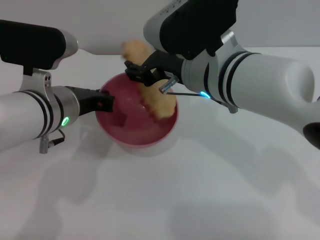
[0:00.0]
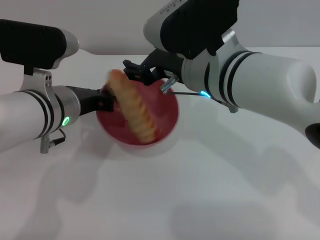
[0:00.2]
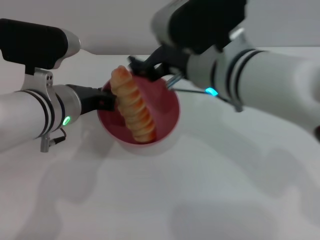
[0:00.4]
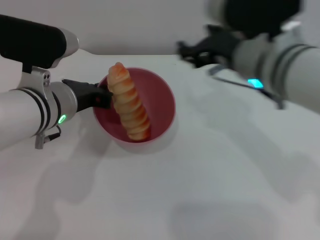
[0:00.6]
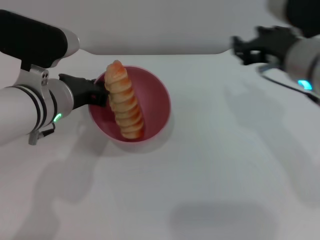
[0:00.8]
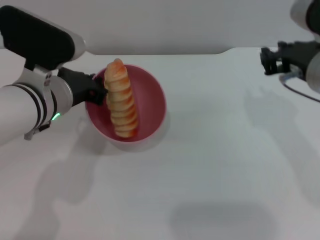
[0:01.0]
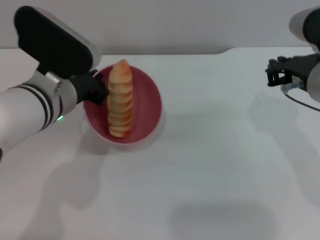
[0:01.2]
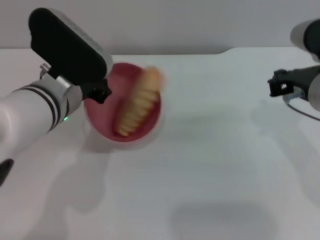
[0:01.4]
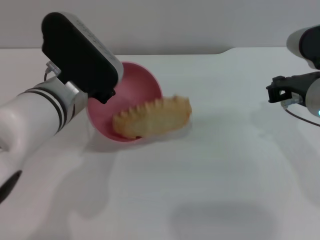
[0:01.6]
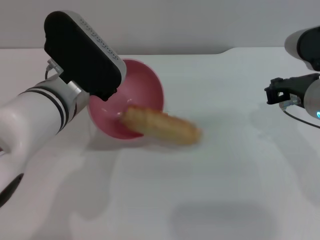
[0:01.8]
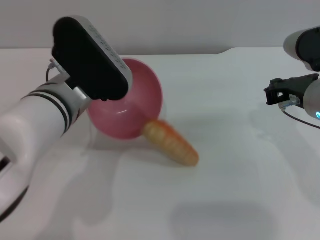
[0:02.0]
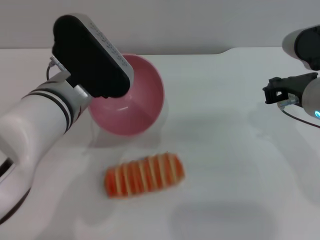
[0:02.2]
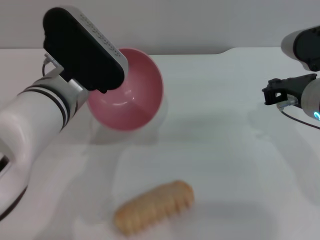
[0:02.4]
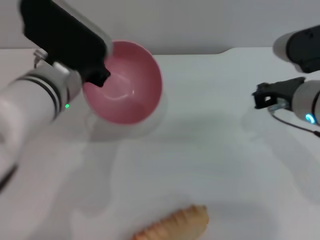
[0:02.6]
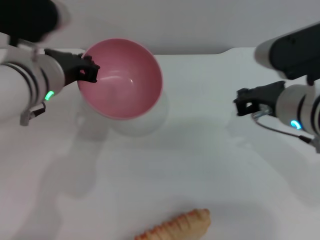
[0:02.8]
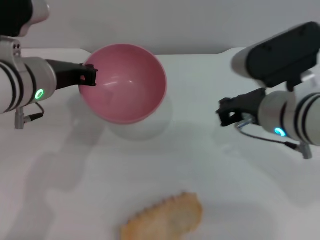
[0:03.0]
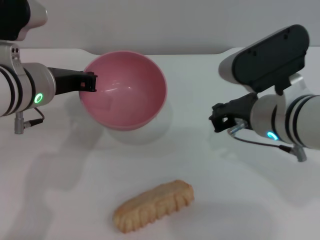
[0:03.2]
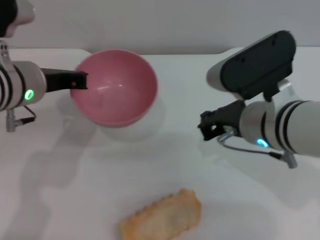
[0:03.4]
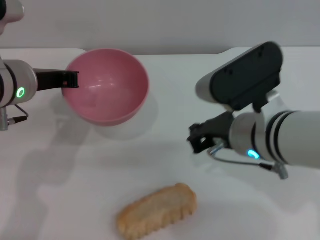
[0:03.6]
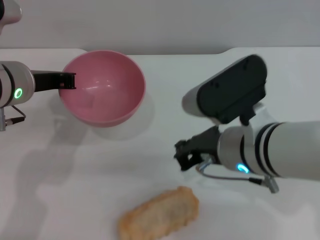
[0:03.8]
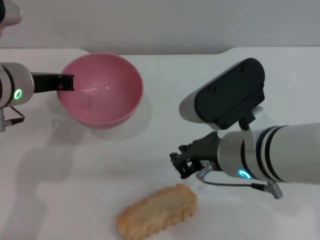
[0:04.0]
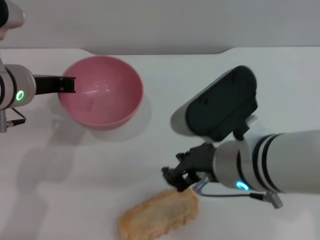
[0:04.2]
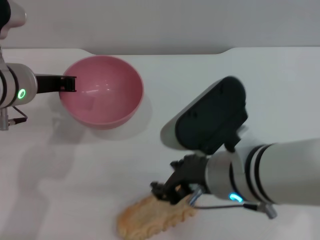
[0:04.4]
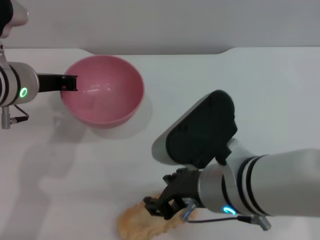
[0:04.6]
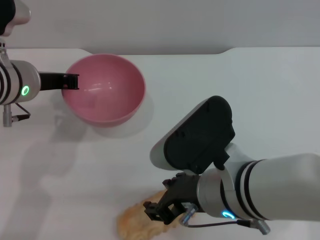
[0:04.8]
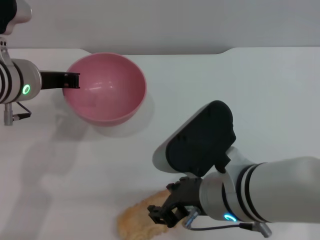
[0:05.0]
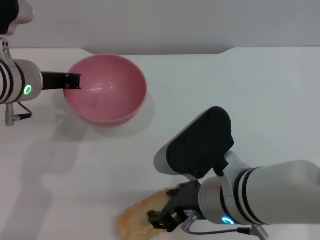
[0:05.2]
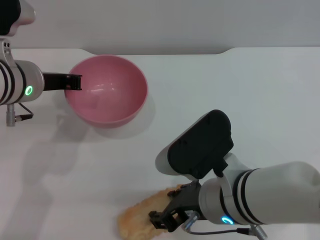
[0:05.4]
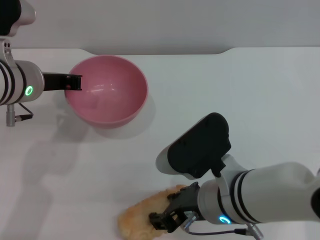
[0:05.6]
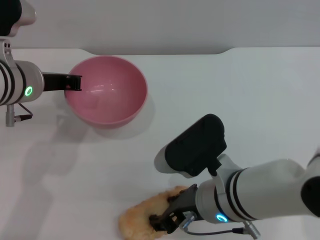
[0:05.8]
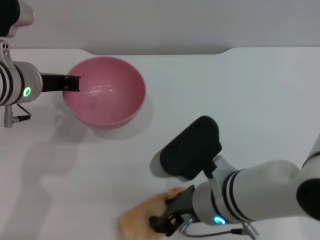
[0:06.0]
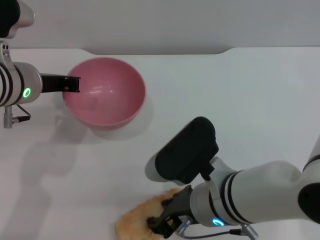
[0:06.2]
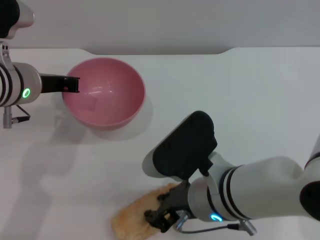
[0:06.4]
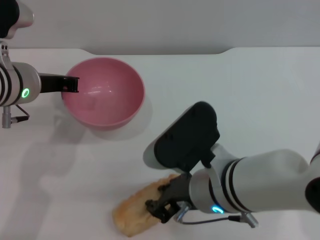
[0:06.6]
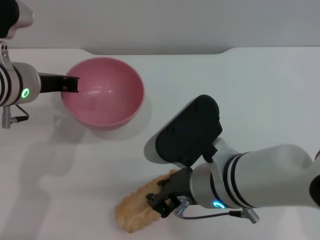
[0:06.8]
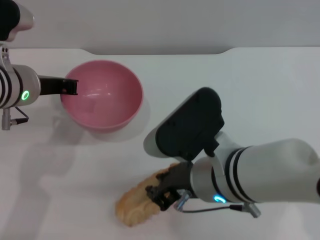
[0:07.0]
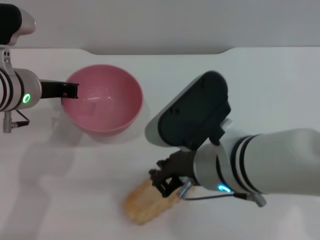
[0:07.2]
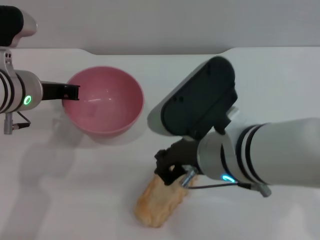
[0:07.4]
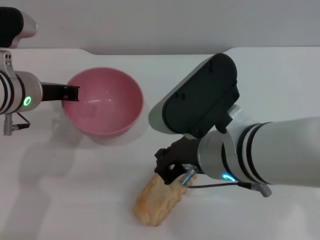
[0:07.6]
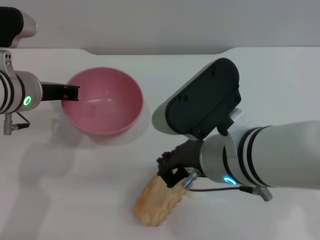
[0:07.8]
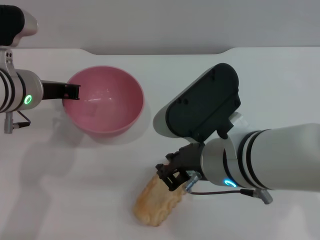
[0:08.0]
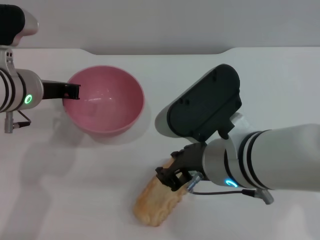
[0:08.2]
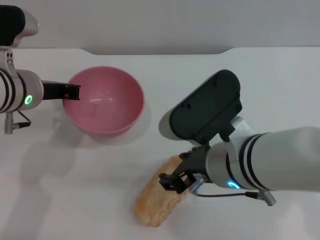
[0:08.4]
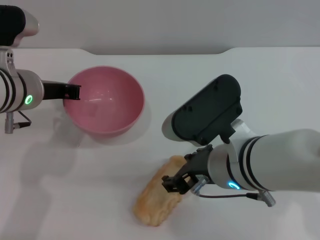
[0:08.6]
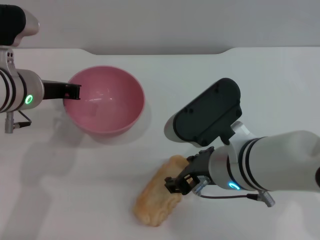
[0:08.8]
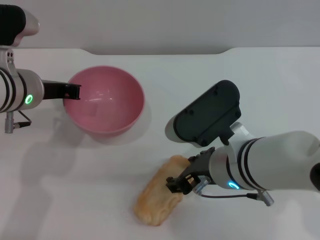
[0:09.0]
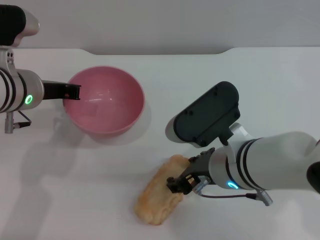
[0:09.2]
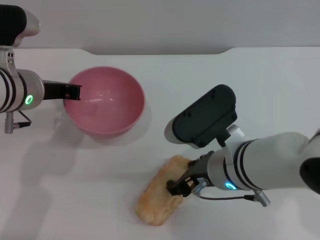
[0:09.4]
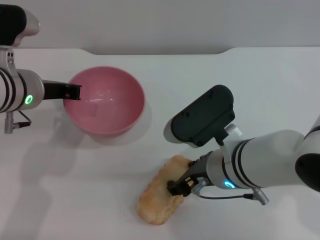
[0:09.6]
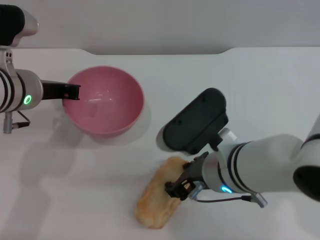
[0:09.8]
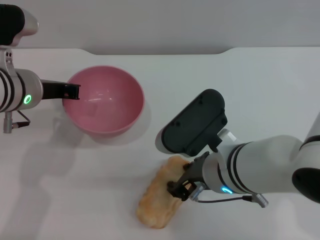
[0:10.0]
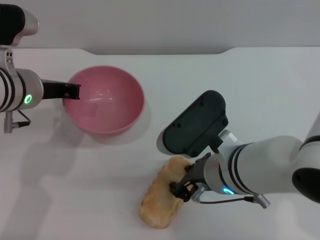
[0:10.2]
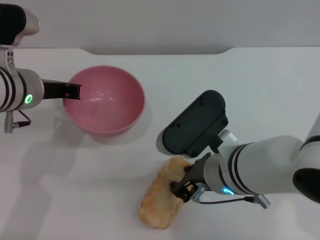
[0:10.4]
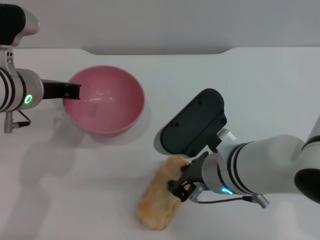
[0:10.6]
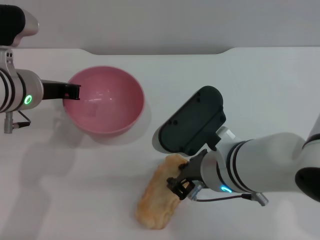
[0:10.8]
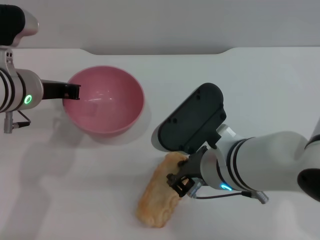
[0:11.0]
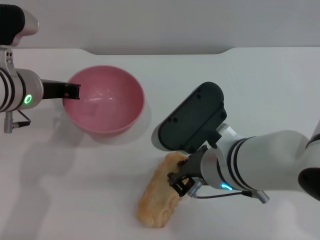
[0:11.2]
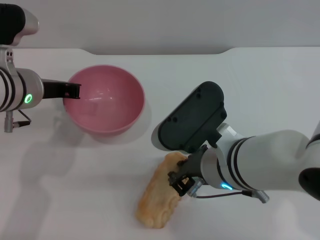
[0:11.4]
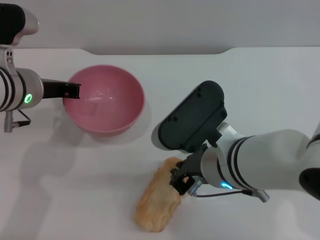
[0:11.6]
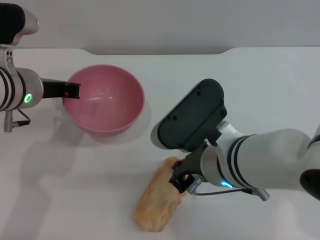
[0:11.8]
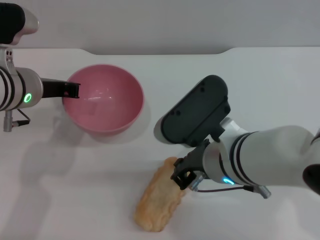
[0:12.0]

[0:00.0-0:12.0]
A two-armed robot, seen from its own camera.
Task of the whole recording: put the bread into the pink bowl and pour it out repeatedly.
Step, 0:00.8 to 0:03.2: Pour the bread out of the bowl.
0:00.0 to 0:01.6: The right gripper heads to the right, covering some 15 cm, and closes up.
0:01.6 to 0:03.0: The left gripper shifts by about 5 cm. Meanwhile the right gripper moves to the left, about 5 cm.
0:03.0 to 0:04.4: The right gripper goes about 10 cm to the left and backward, and opens its fingers.
0:04.4 to 0:06.0: The right gripper moves downward, some 5 cm.
0:06.0 to 0:07.6: The right gripper goes roughly 10 cm upward, and closes.
0:07.6 to 0:09.0: The right gripper shifts approximately 5 cm downward, and opens up.
0:09.0 to 0:10.4: The grippers move only a little.
0:10.4 to 0:12.0: The right gripper closes up.

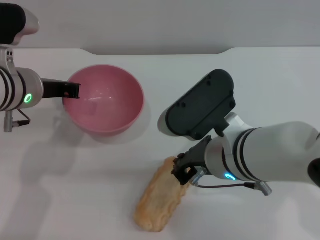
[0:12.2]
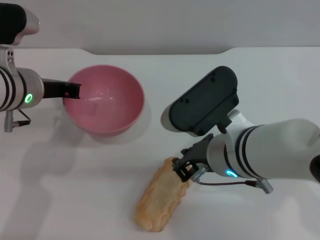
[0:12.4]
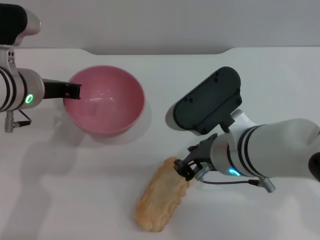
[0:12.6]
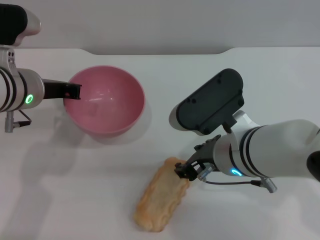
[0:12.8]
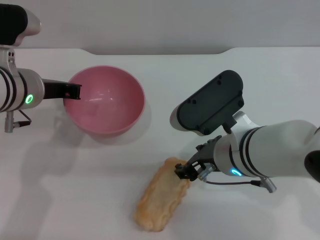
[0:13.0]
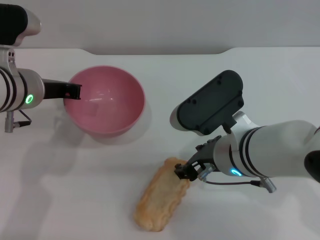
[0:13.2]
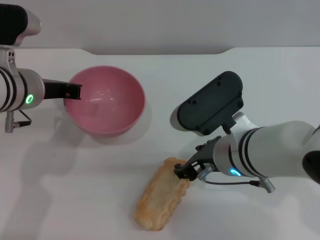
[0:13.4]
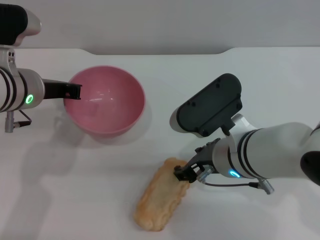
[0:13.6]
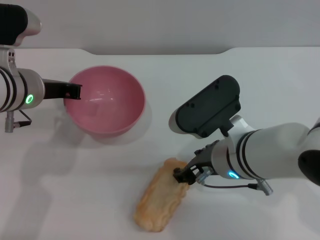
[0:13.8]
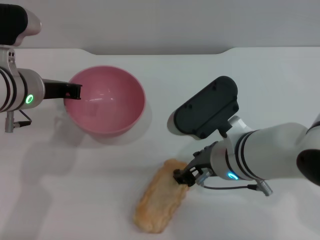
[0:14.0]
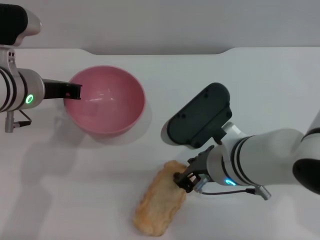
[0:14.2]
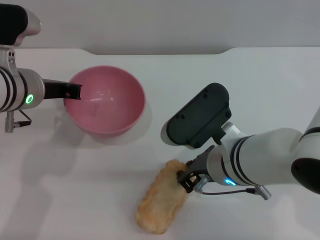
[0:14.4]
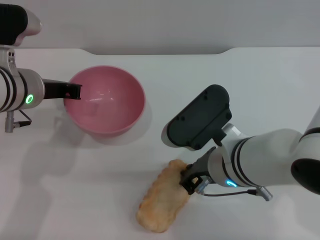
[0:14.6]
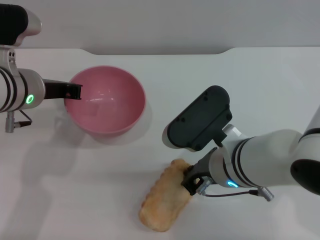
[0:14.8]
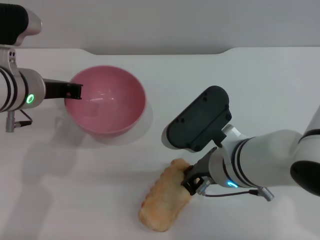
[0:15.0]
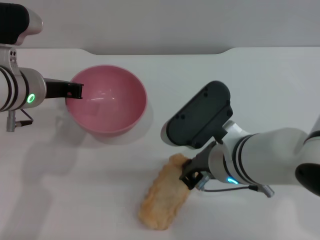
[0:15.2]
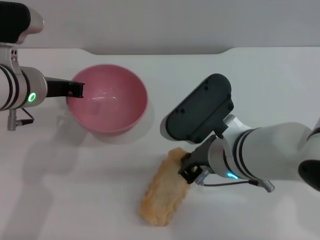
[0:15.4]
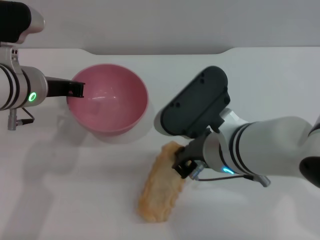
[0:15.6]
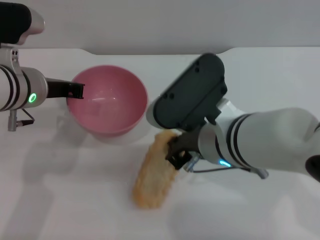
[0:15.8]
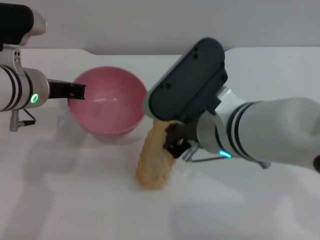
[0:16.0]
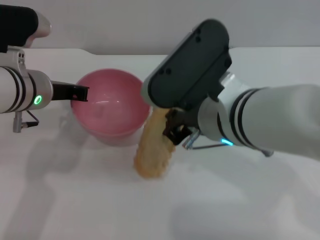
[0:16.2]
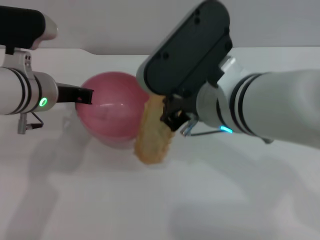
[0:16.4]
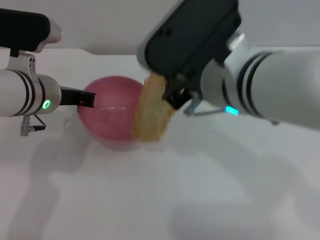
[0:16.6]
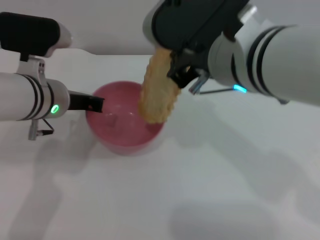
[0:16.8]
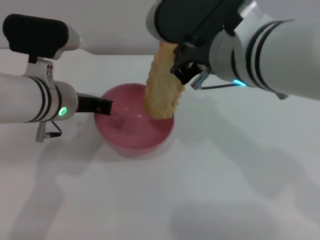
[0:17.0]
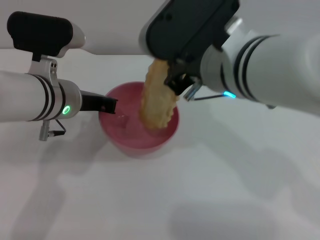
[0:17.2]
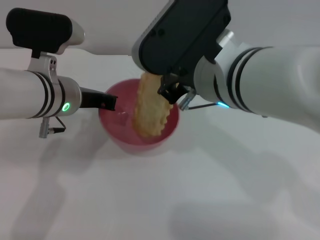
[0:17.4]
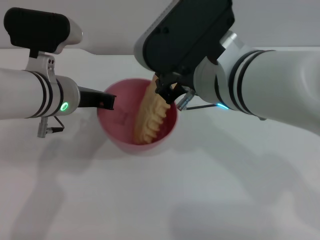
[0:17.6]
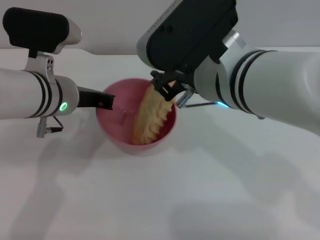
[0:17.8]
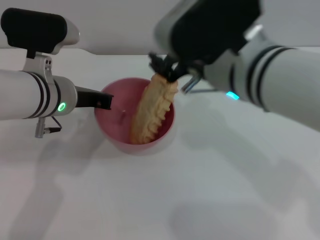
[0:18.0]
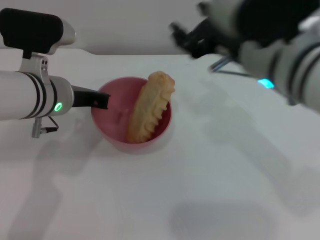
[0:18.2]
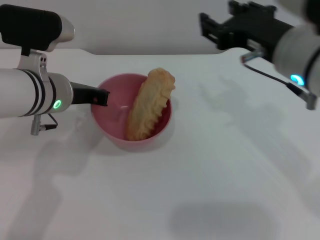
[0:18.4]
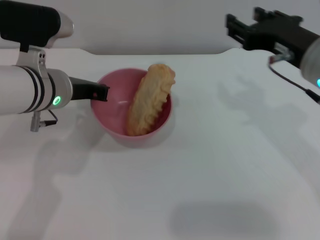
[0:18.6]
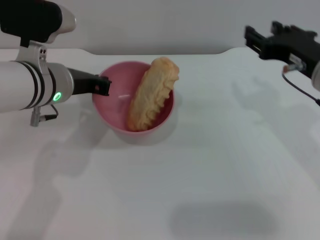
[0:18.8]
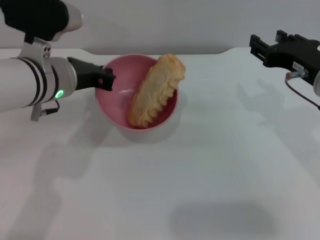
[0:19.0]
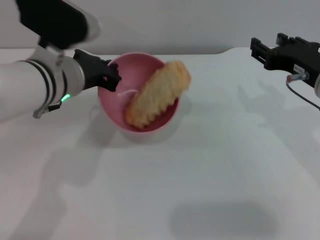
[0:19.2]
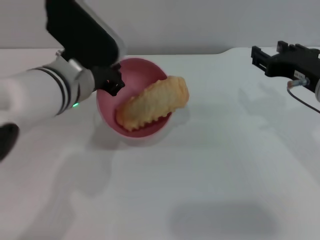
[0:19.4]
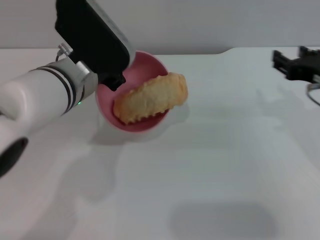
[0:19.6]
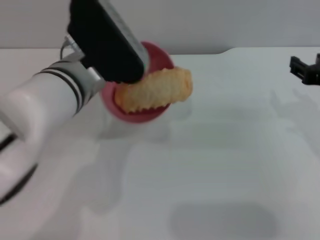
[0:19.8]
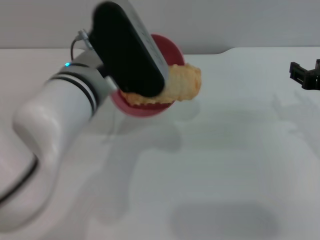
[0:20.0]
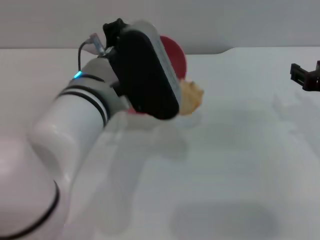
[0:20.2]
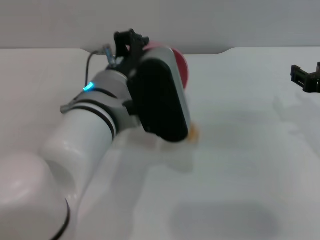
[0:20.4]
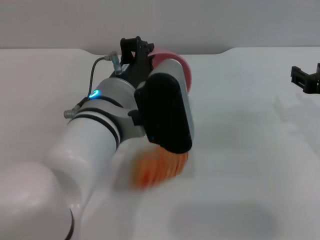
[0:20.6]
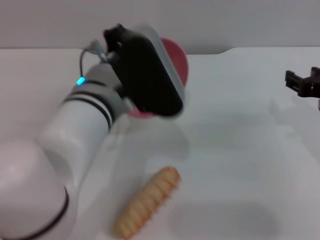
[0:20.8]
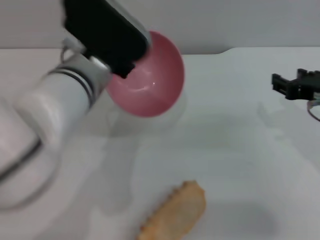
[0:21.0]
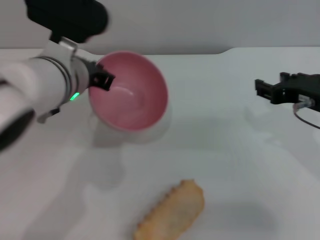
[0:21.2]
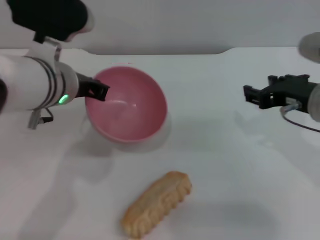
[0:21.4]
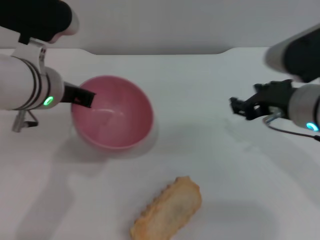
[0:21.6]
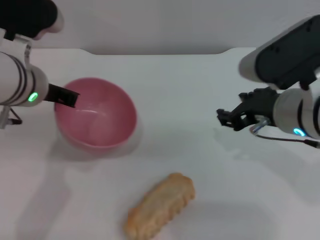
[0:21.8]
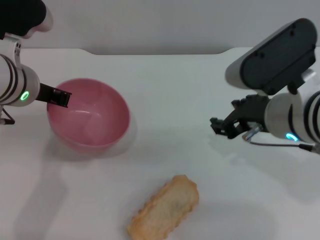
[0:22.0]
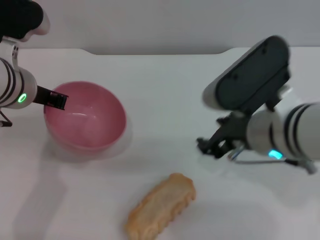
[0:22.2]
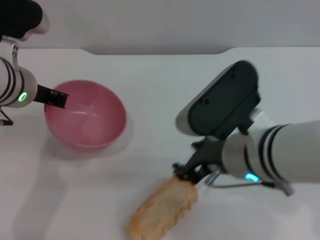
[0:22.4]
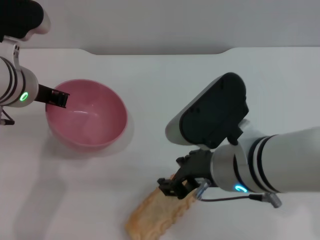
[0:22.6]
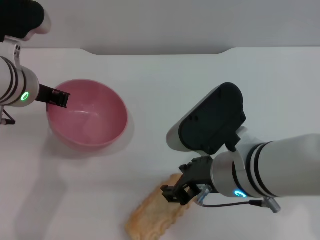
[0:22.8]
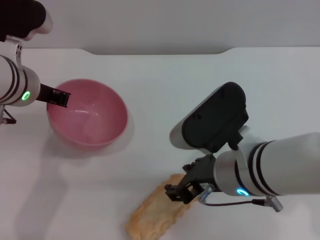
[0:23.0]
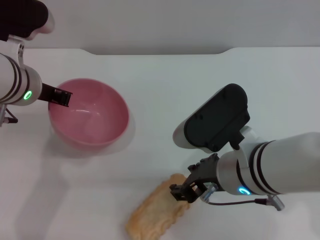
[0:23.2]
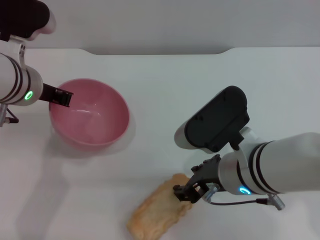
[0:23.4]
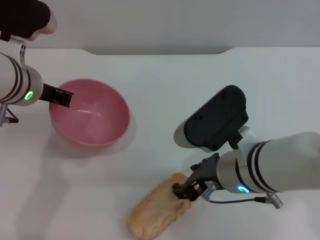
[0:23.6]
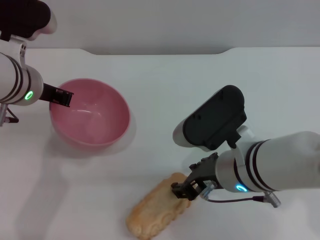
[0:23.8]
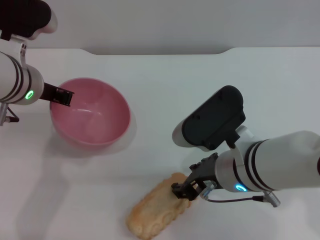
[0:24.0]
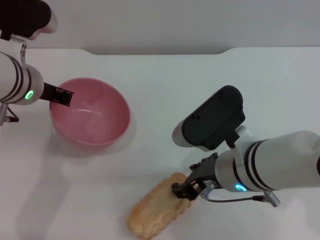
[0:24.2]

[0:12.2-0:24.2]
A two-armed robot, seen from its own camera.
Task of the whole recording: put the bread into the pink bowl and pour it out repeatedly.
Step, 0:12.2 to 0:16.6: Pick up the bread with the right gripper.
Step, 0:16.8 to 0:18.0: Place the bread into the bowl.
Step, 0:18.4 to 0:21.0: Pour the bread out of the bowl.
0:12.2 to 0:13.8: The right gripper opens its fingers.
0:13.8 to 0:15.2: The right gripper closes.
0:15.2 to 0:16.6: The right gripper travels upward by approximately 10 cm.
0:16.6 to 0:18.2: The right gripper opens its fingers.
0:18.2 to 0:19.8: The left gripper shifts approximately 5 cm to the right. The right gripper is displaced to the right and downward by approximately 15 cm.
0:21.2 to 0:22.6: The left gripper goes roughly 5 cm to the left. The right gripper heads to the left, covering roughly 15 cm.
0:22.6 to 0:24.2: There are only small adjustments of the grippers.
